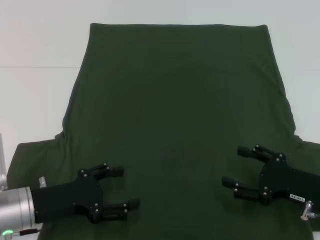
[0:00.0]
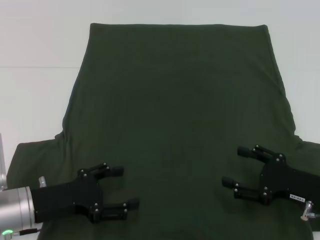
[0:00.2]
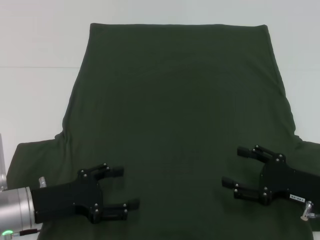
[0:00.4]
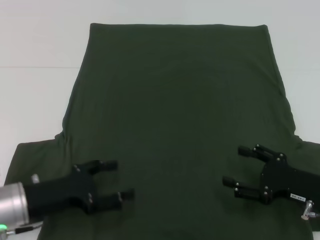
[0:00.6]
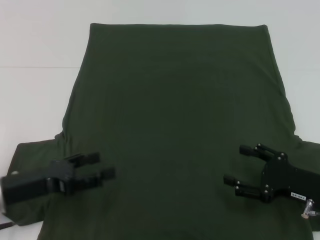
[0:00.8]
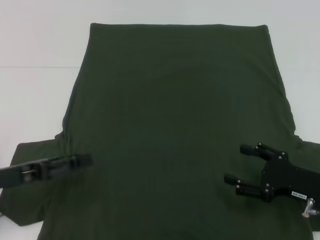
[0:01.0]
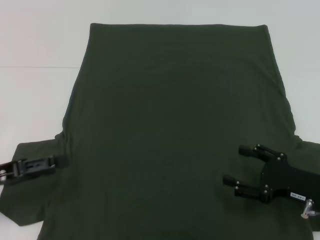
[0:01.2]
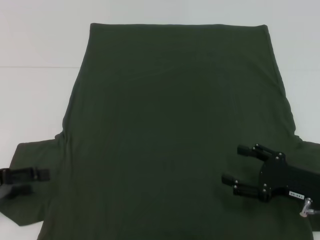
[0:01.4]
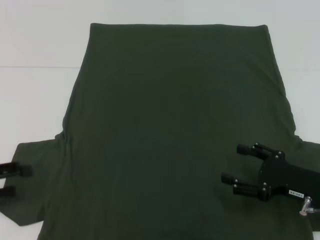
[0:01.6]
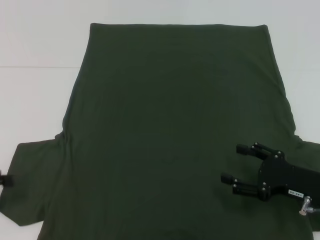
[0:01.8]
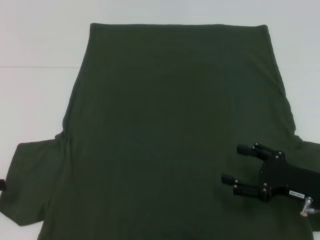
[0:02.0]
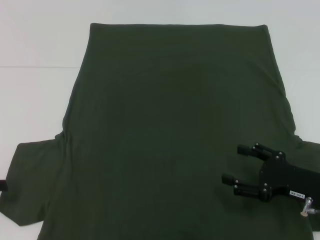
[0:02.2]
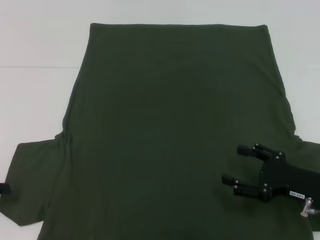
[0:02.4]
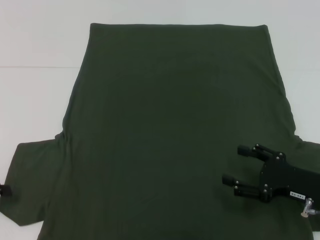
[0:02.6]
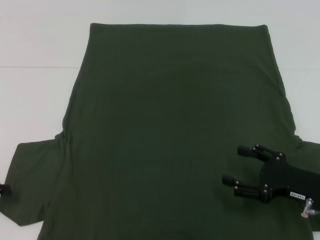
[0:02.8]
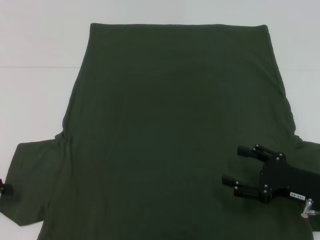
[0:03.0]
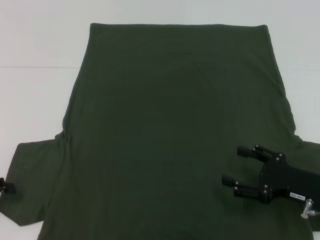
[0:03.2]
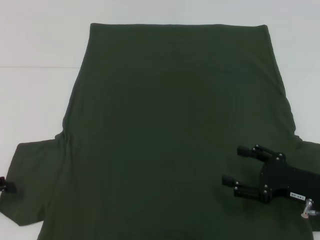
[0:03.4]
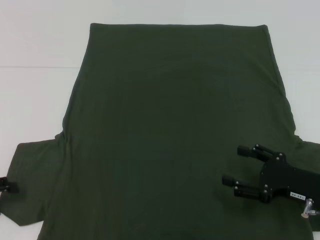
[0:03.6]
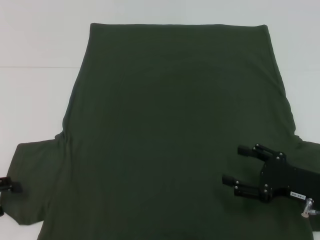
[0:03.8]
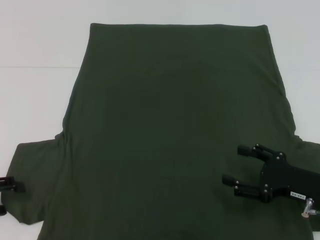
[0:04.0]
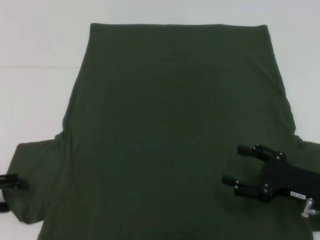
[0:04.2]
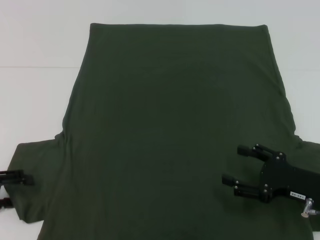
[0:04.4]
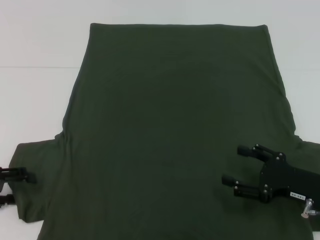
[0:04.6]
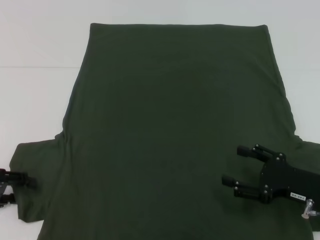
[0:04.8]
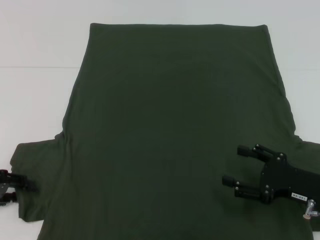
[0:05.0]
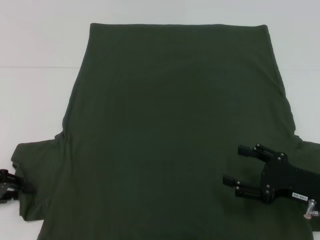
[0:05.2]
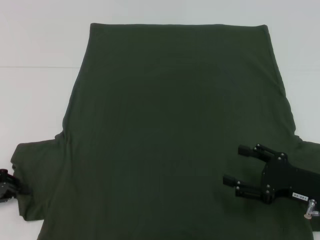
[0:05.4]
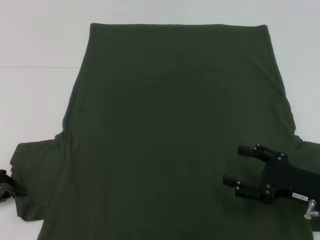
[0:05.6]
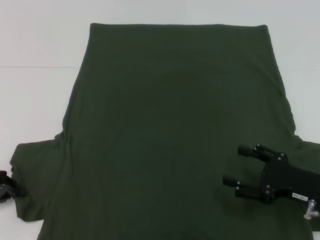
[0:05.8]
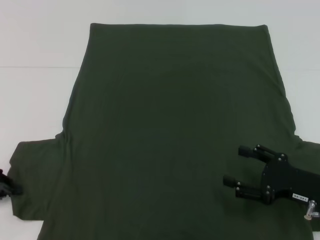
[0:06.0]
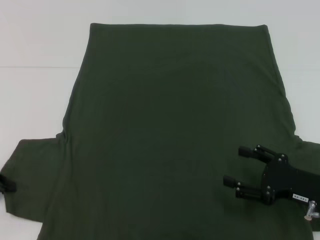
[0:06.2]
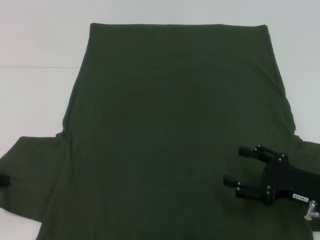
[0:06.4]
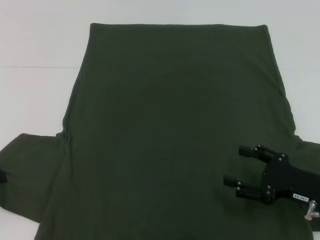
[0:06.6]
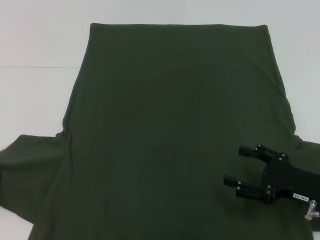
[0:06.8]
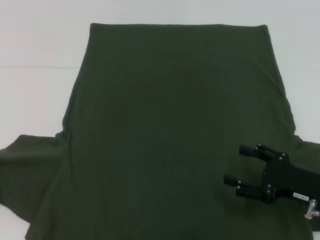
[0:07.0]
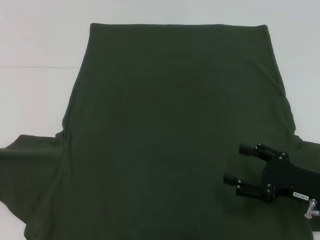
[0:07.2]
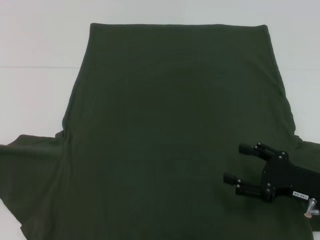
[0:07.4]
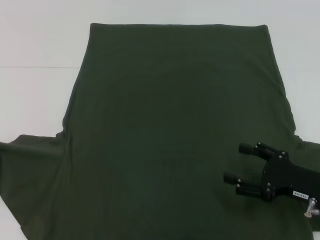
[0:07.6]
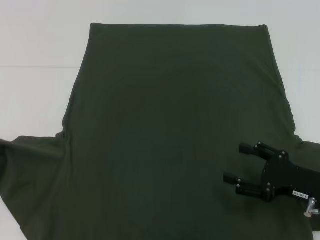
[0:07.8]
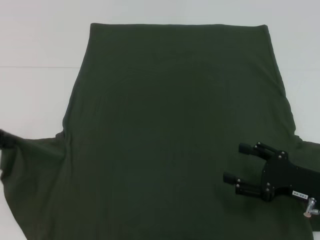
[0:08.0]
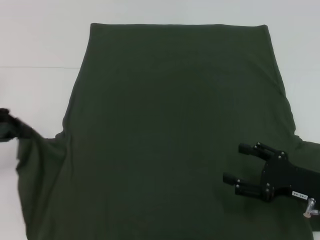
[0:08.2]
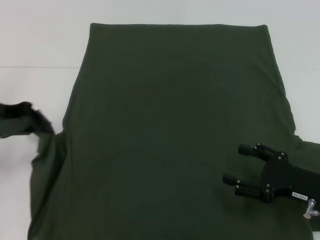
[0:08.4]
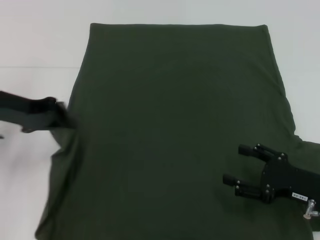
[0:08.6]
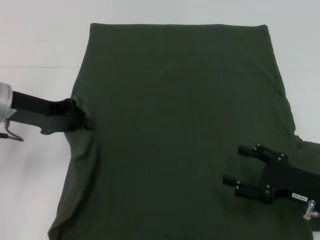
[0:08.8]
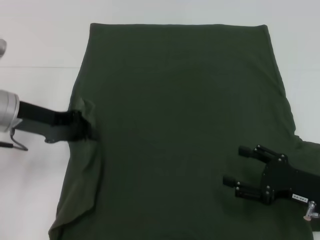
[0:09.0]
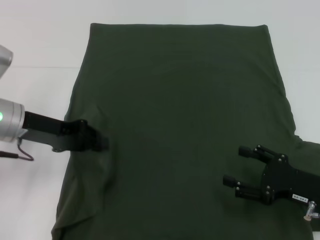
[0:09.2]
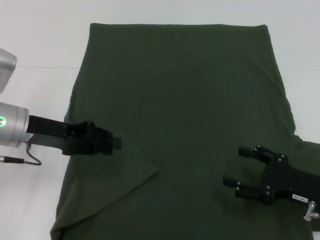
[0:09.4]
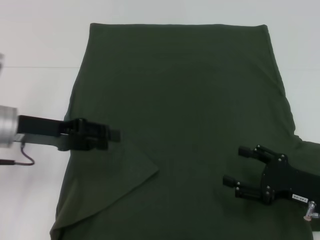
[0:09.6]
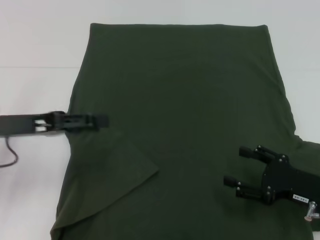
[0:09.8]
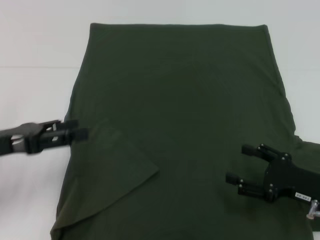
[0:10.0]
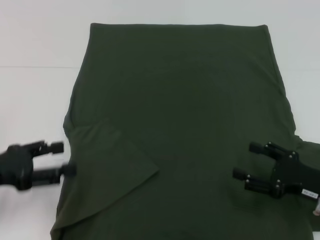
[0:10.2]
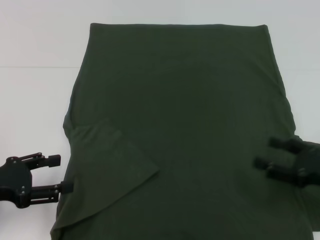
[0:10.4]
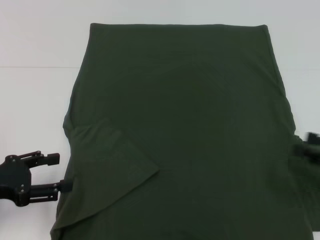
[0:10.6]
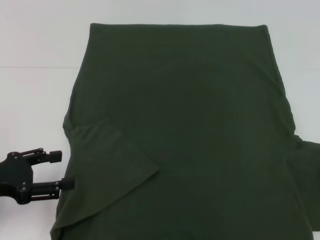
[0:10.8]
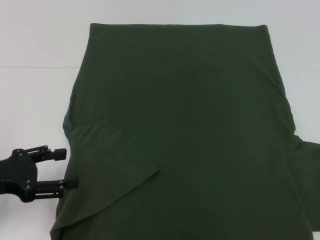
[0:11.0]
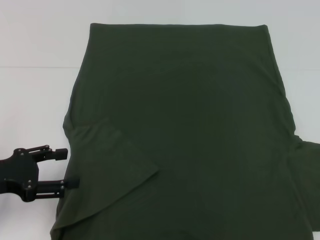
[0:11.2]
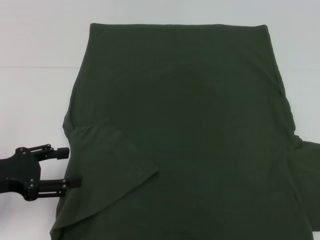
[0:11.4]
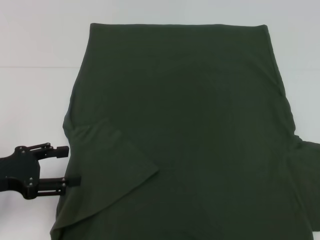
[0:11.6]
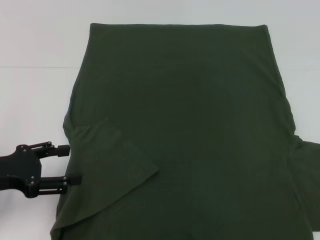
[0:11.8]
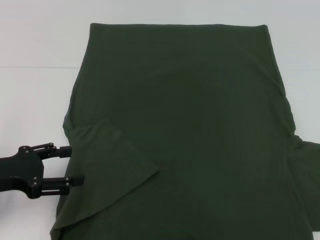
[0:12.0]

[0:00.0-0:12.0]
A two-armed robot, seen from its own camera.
Step, 0:00.0 to 0:09.4: Fold the bottom left sleeve with your left hand.
0:00.0 to 0:01.6: The left gripper is displaced to the left and upward by some 15 cm.
0:01.6 to 0:04.4: The grippers make only small movements.
0:04.4 to 0:06.0: The left gripper closes.
0:06.0 to 0:07.6: The left gripper ends up approximately 5 cm from where it was.
0:07.6 to 0:09.0: The left gripper is displaced to the right and forward by roughly 15 cm.
0:09.0 to 0:10.4: The left gripper goes about 15 cm backward, to the left and downward, and opens up.
0:10.4 to 0:12.0: The right gripper heads to the right and upward, covering roughly 15 cm.

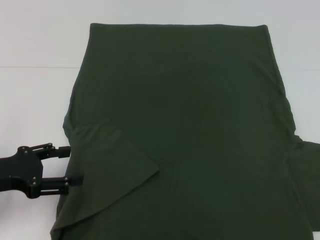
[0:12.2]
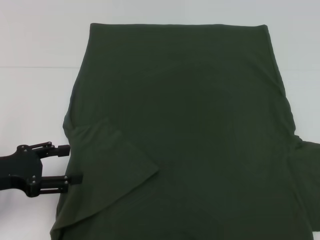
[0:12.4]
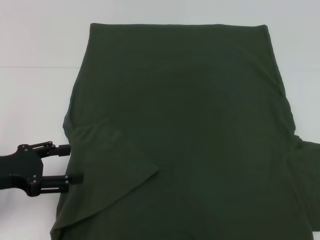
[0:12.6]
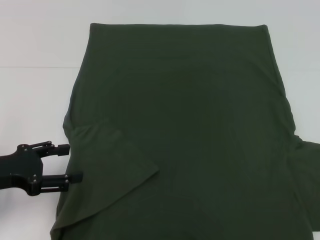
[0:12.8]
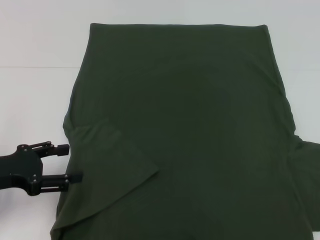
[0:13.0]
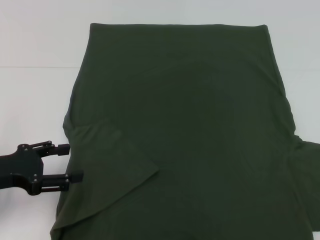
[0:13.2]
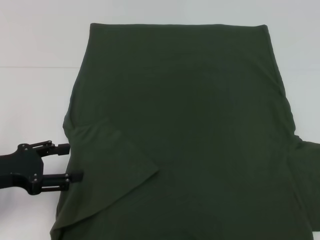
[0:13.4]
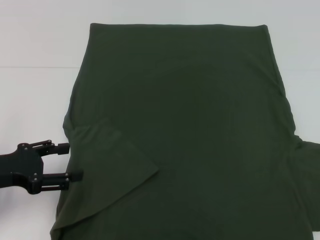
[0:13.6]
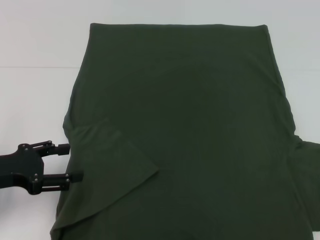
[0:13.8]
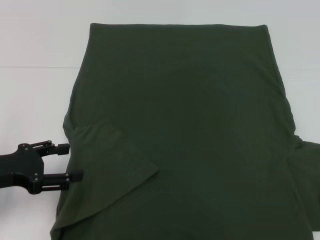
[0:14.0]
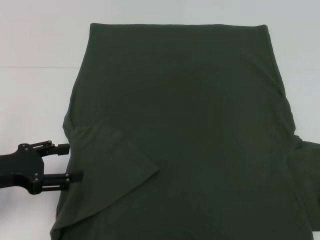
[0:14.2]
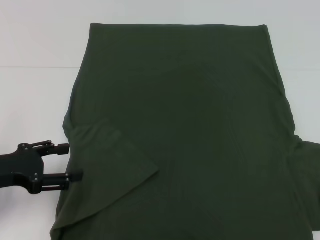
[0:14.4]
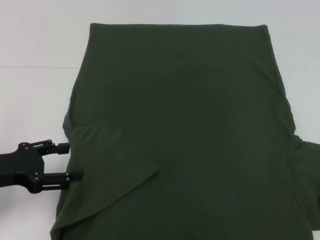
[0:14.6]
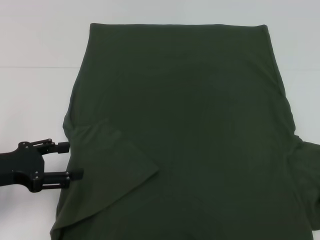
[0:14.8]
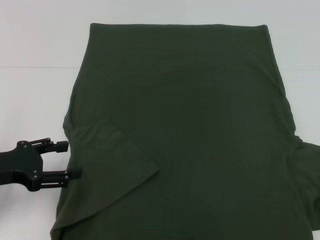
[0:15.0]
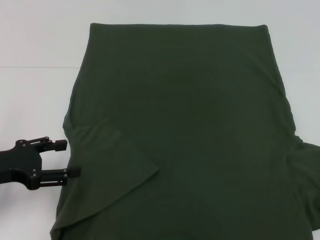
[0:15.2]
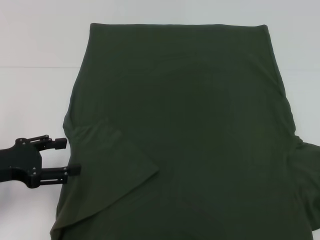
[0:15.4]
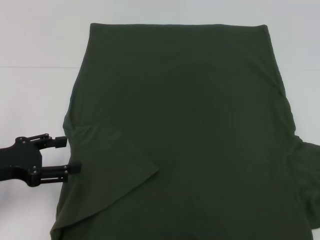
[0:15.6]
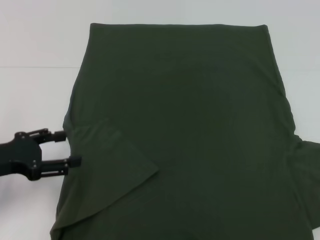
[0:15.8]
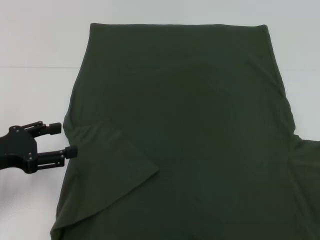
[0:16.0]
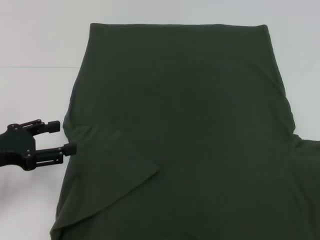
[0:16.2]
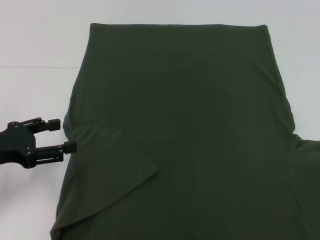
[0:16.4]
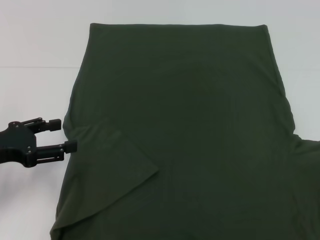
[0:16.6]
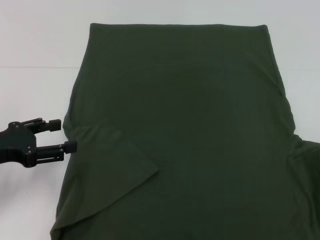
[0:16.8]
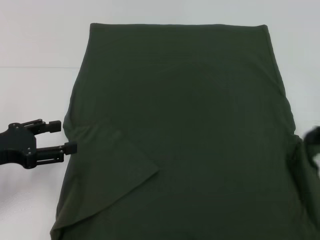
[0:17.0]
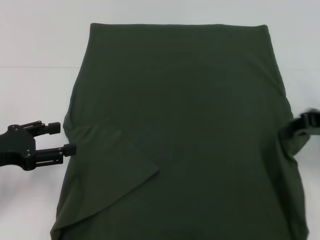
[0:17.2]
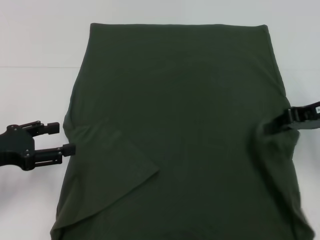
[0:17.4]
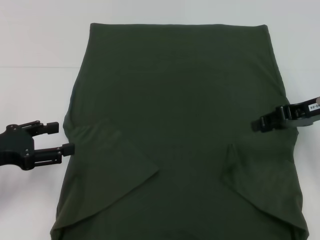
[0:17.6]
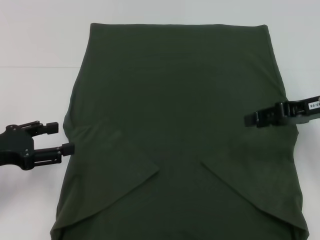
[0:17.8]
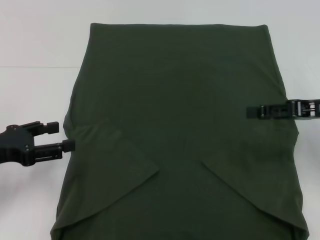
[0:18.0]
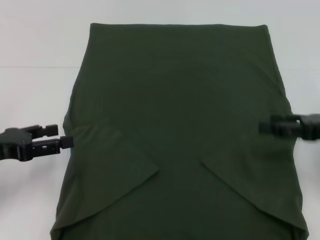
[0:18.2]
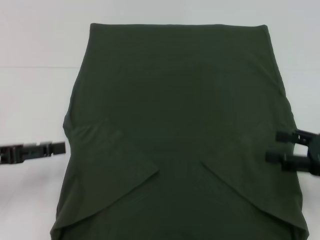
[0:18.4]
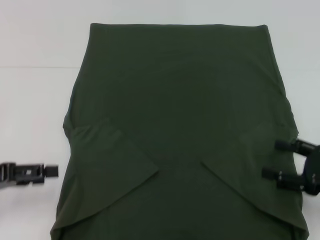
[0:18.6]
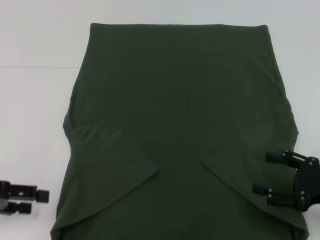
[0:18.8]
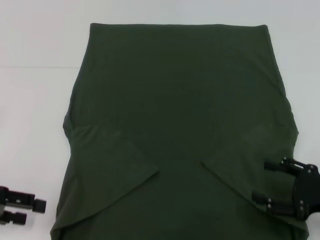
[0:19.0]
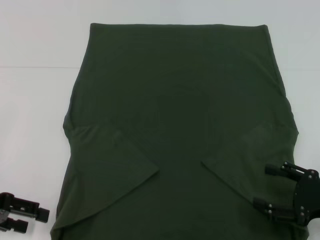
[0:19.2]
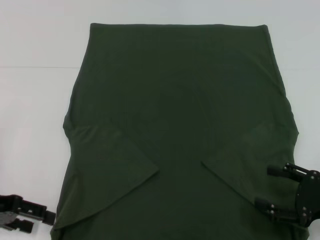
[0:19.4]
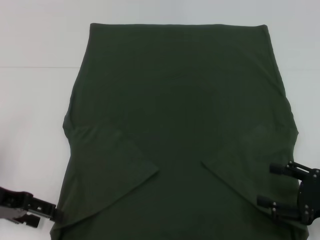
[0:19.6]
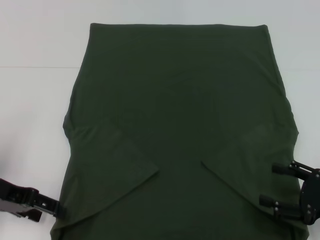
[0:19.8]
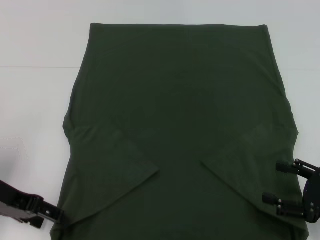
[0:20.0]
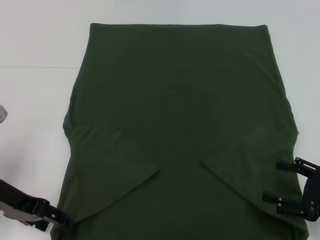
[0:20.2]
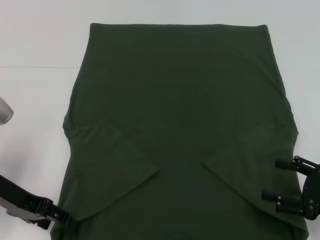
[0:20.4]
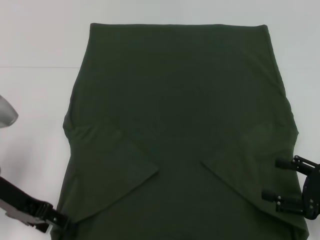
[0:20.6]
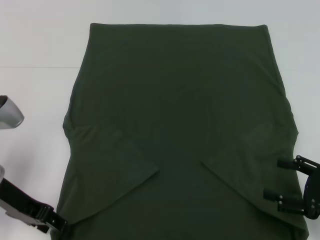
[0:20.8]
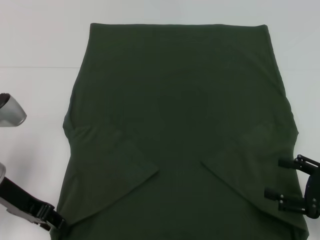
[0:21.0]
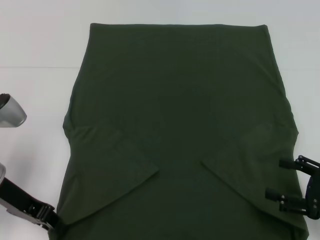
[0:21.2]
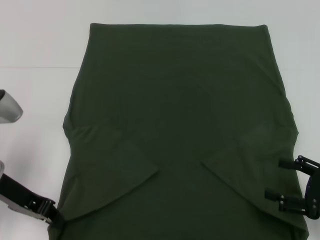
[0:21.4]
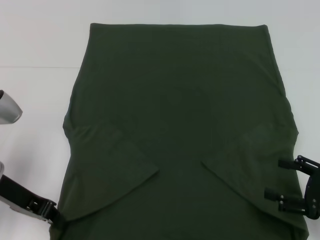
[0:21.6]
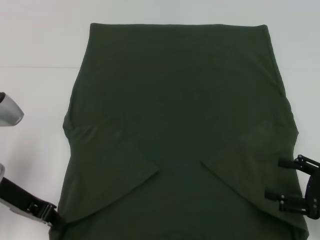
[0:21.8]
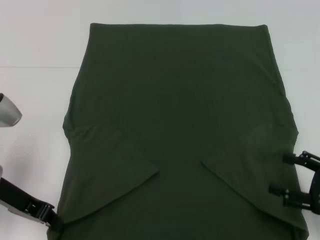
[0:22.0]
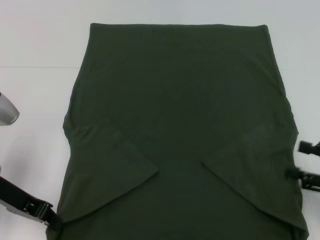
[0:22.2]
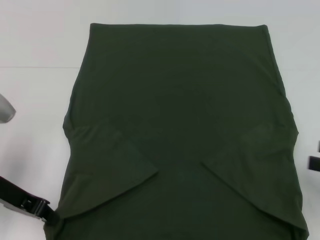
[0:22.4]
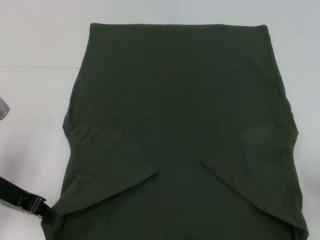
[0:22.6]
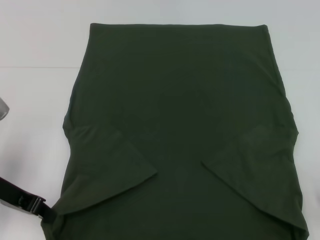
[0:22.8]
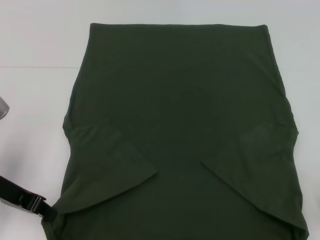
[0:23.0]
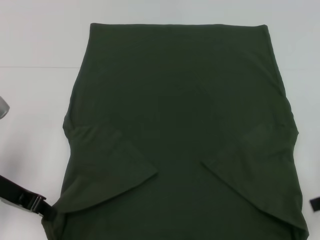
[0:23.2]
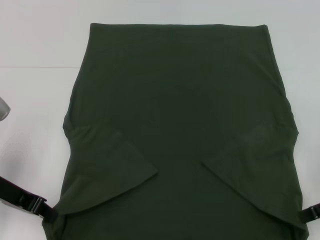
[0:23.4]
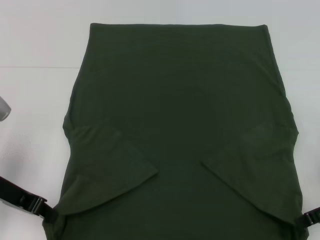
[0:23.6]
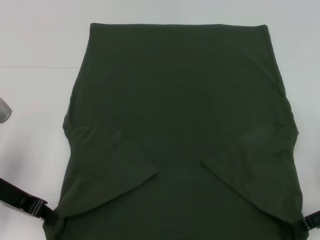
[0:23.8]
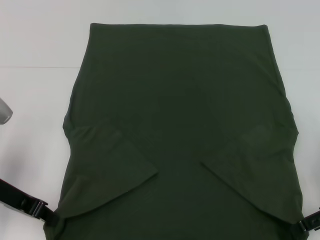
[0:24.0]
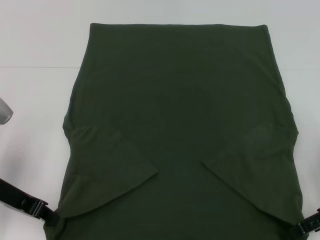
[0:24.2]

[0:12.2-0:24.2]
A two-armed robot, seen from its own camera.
Step, 0:12.2 to 0:17.6: Fold the bottom right sleeve with your right hand.
Step, 0:17.8 to 0:22.0: Grab the bottom left corner with your left hand.
0:12.2 to 0:13.8: The grippers stay close to where they were, moving slightly.
0:16.6 to 0:18.2: The right gripper is displaced to the left by some 10 cm, and opens up.
0:18.2 to 0:19.8: The right gripper travels backward and downward by roughly 10 cm.
0:19.8 to 0:21.2: The left gripper closes.
0:21.2 to 0:22.6: The left gripper closes up; the right gripper shifts some 10 cm upward and to the right.
